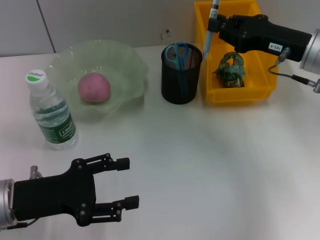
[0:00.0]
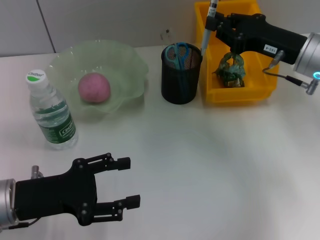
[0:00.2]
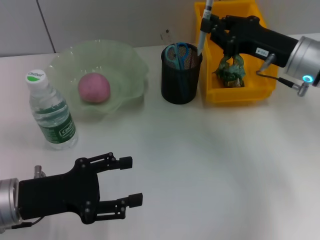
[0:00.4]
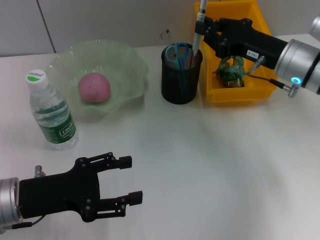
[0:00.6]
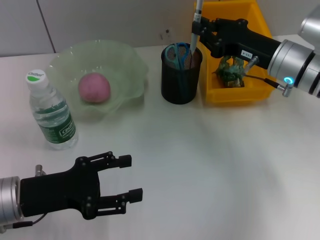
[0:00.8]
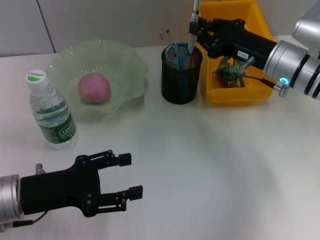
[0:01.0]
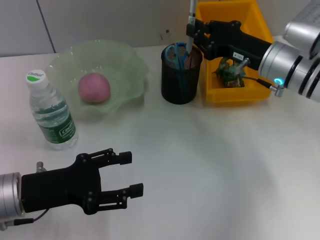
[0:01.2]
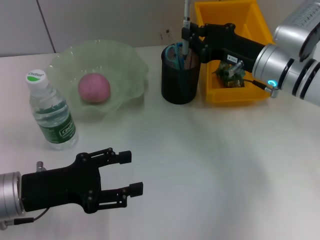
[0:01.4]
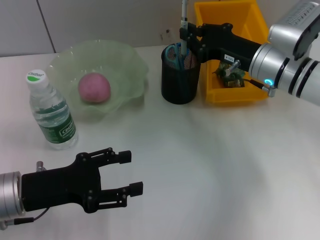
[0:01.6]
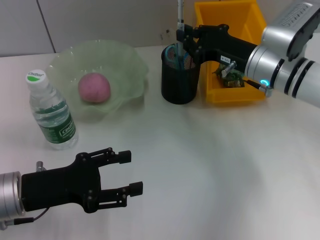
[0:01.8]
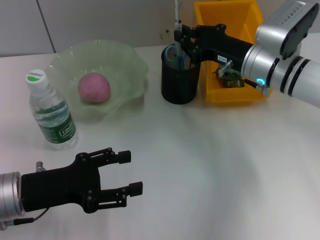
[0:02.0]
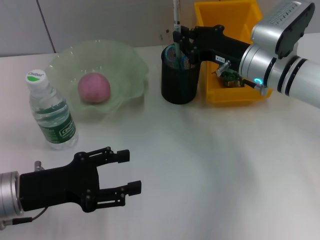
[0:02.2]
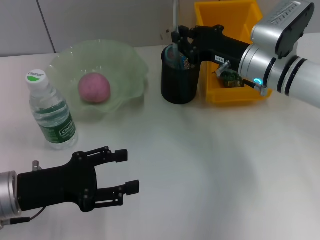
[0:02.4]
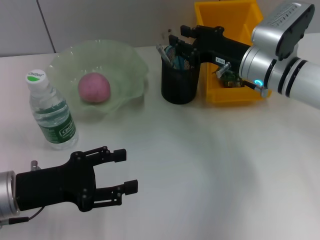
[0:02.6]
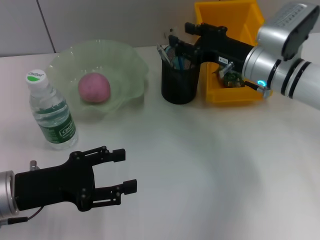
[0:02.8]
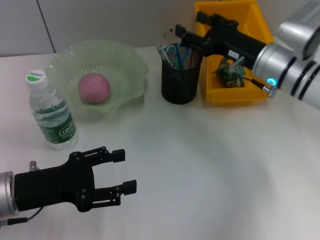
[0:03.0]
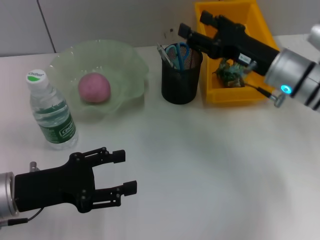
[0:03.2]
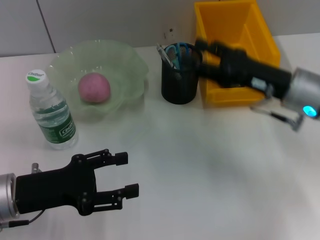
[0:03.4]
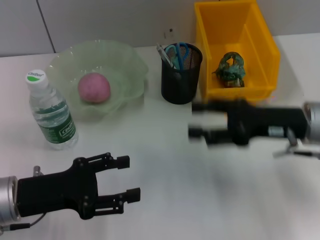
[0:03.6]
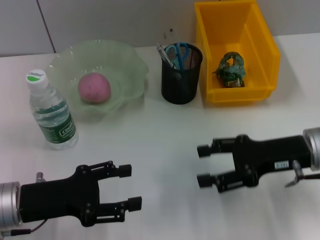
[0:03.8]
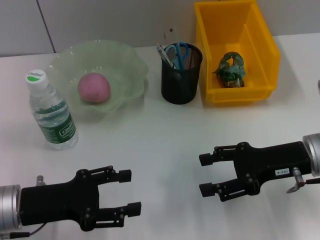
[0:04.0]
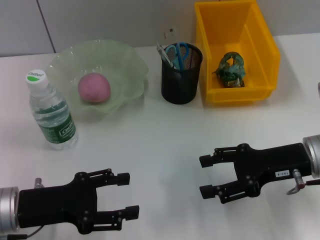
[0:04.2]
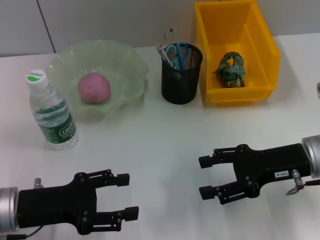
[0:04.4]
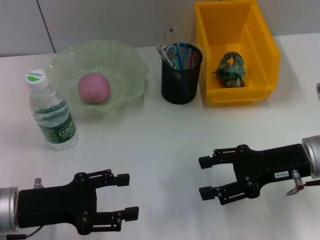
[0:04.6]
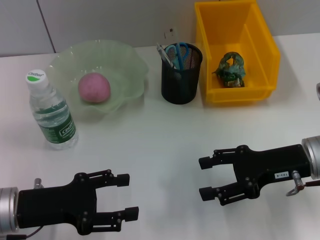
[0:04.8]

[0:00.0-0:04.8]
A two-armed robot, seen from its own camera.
Step, 0:00.0 to 0:02.6: Place the gray spring-action pen into the pen holder with the right hand.
0:00.0 to 0:01.6: The right gripper shifts some 5 cm to the left.
0:01.6 to 0:03.2: The right gripper opens.
0:03.2 to 0:04.8: The right gripper shifts roughly 10 cm backward.
